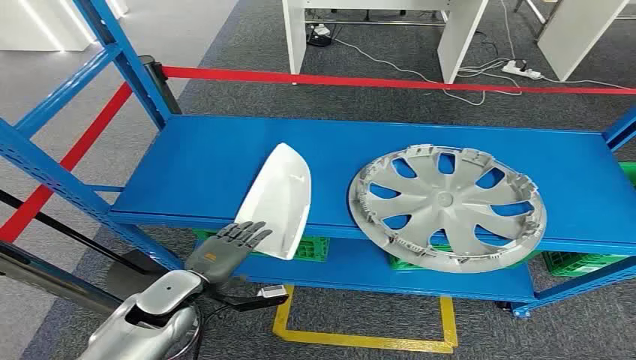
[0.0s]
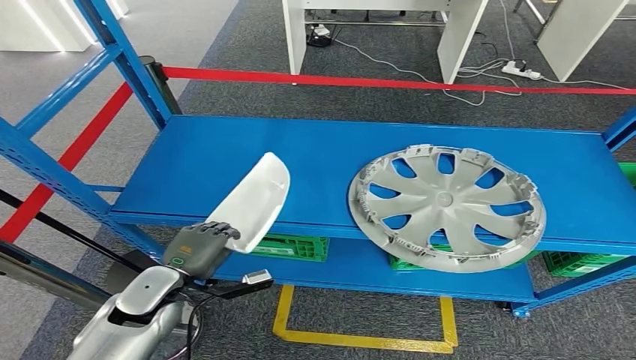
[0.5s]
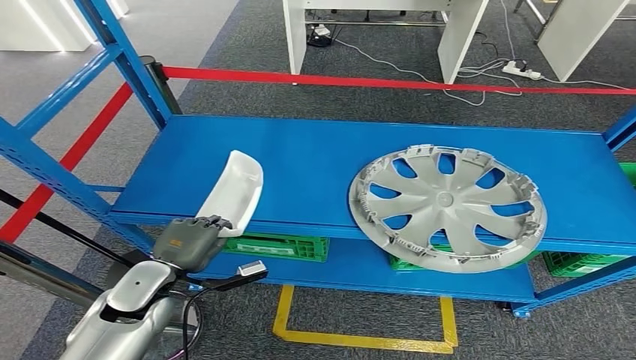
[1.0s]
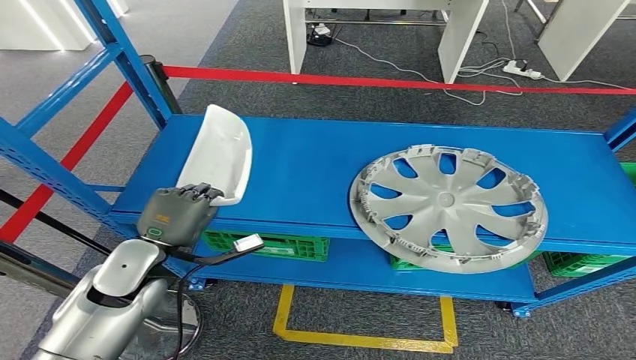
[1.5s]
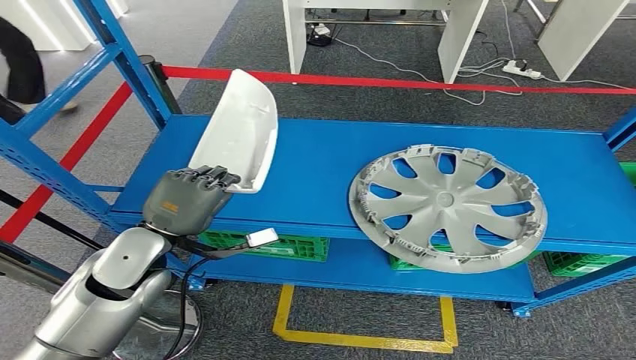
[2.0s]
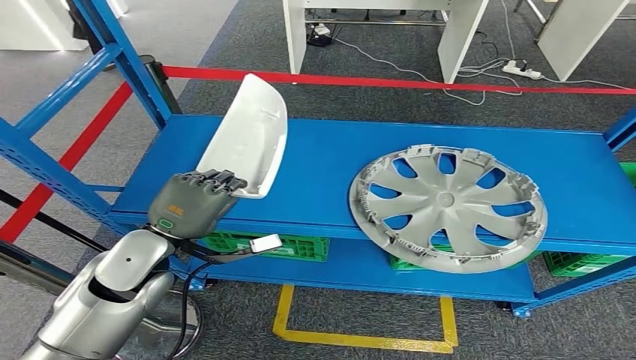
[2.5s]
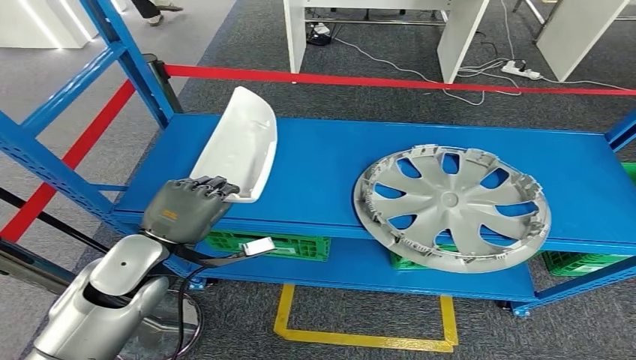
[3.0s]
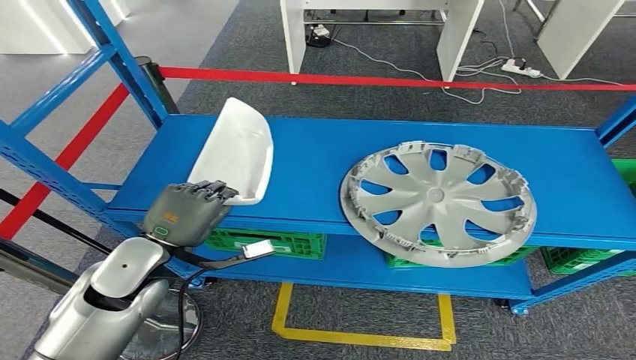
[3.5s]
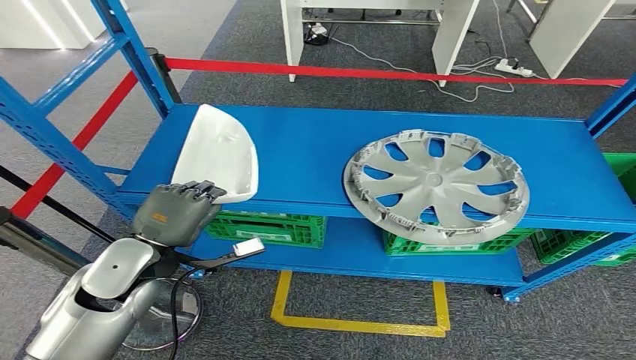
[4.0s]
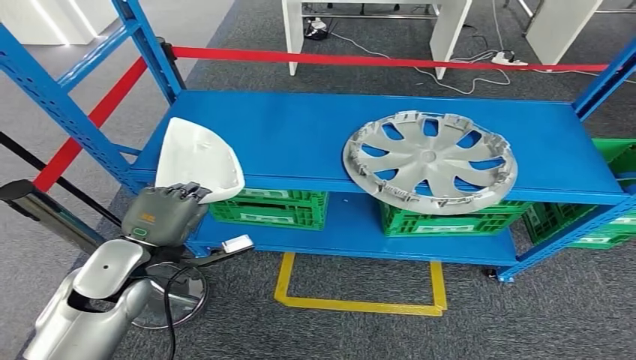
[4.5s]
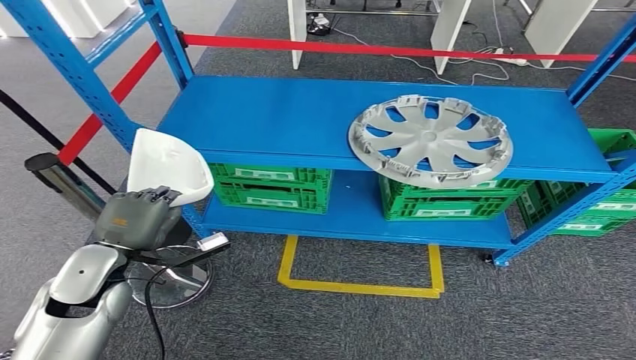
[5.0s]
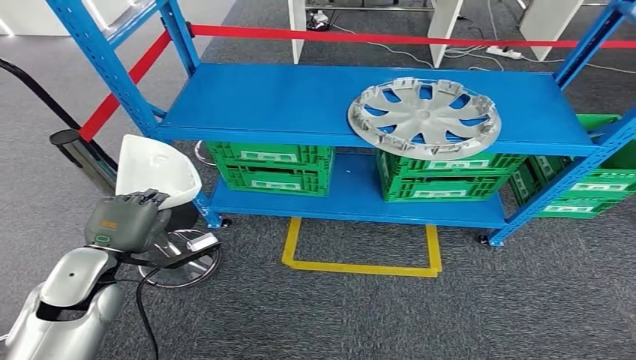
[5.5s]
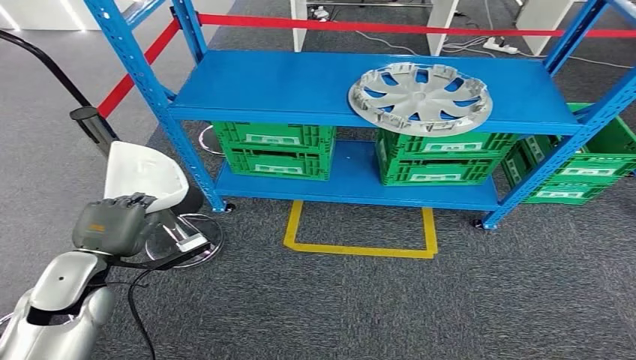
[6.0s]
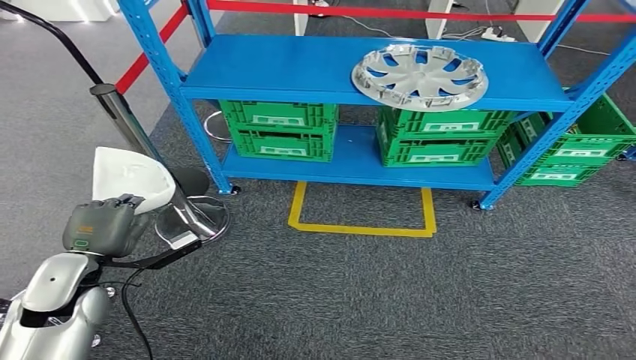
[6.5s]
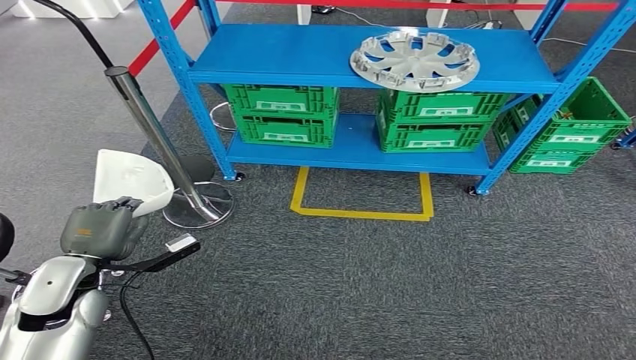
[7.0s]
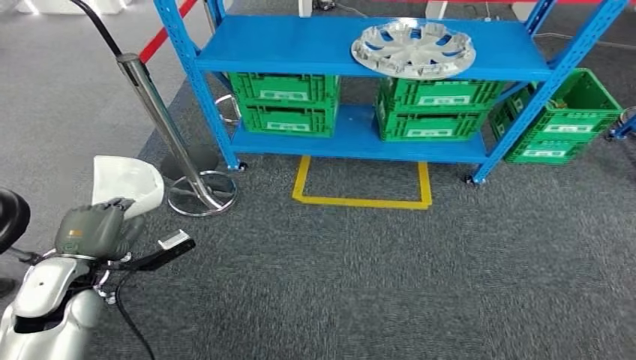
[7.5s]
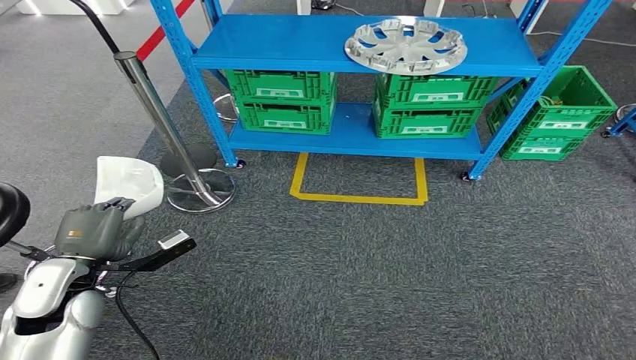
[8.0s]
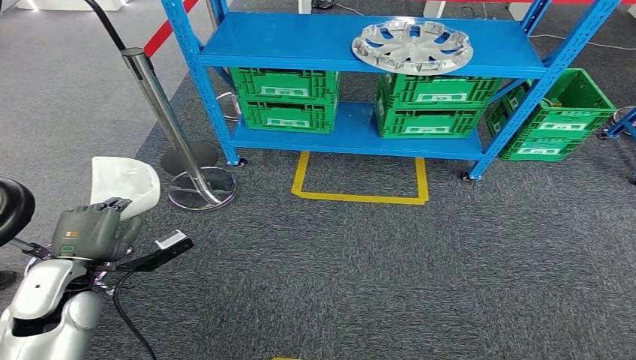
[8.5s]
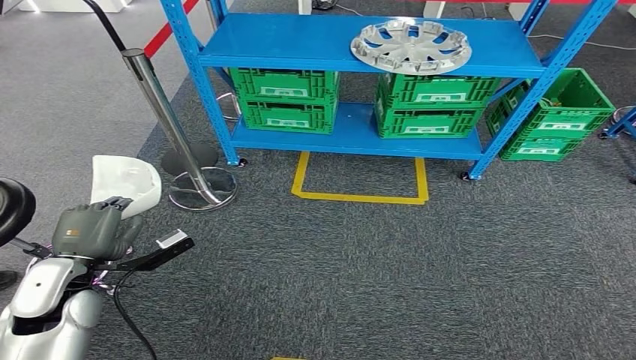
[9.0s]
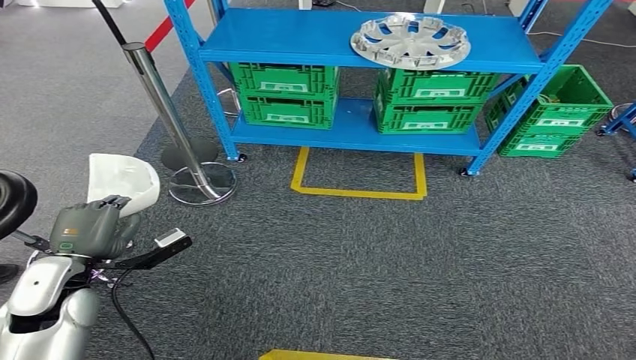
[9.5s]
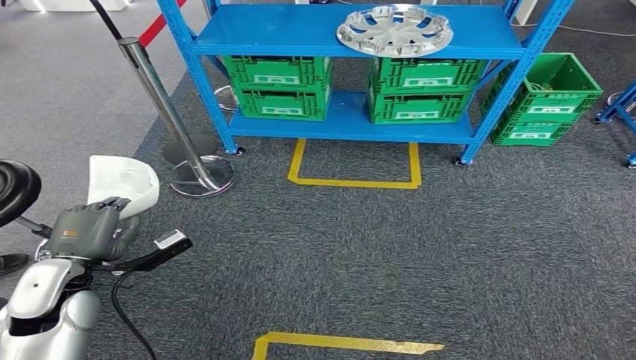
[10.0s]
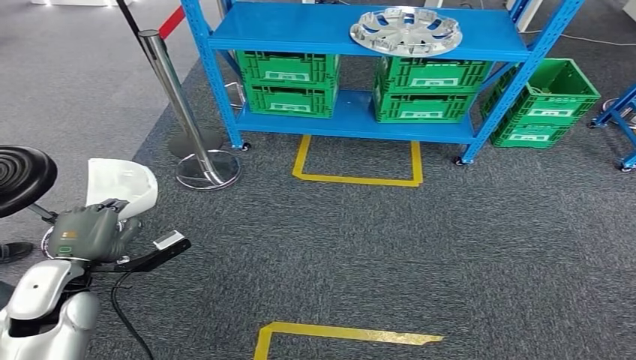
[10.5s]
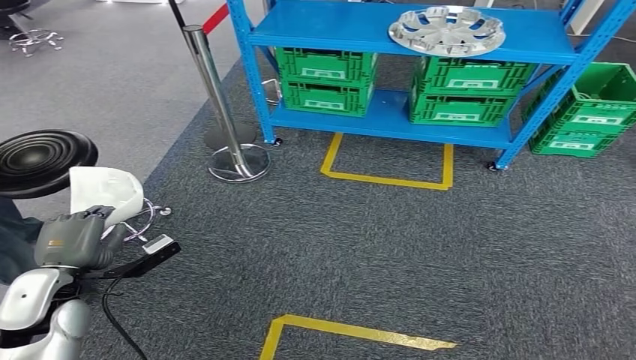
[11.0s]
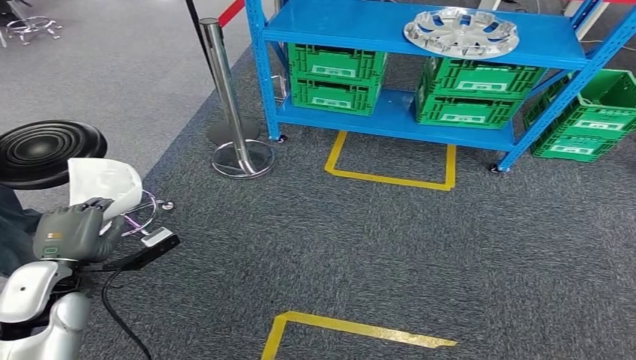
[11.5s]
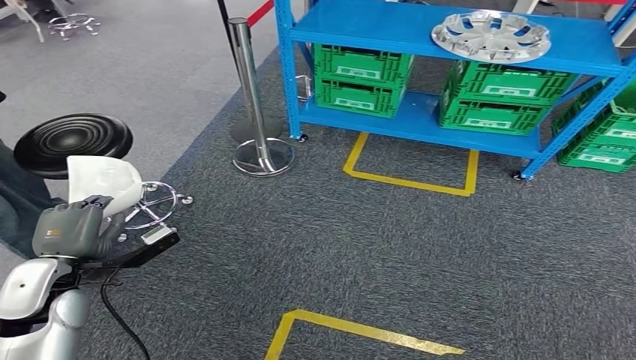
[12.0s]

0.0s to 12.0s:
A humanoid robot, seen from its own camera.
Step, 0.0s to 3.5s: Pick up the small component from the shelf.

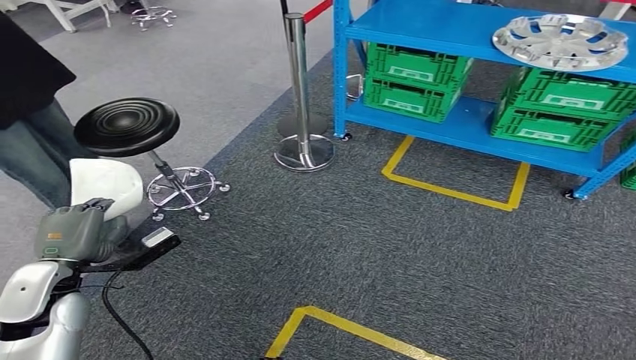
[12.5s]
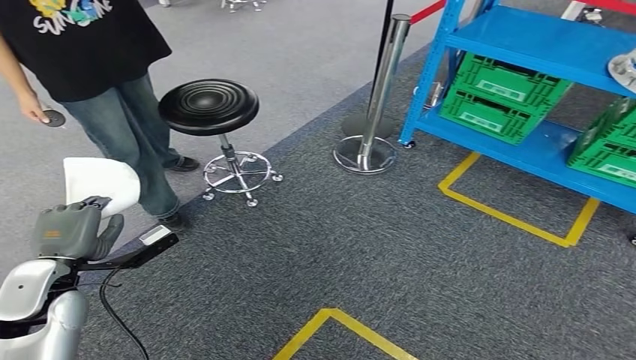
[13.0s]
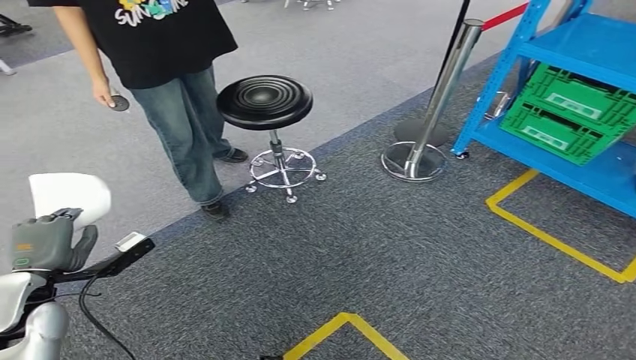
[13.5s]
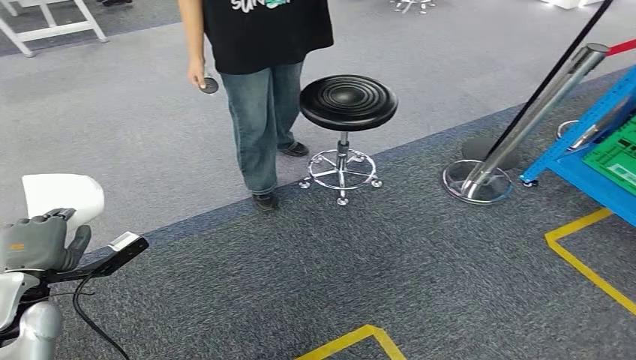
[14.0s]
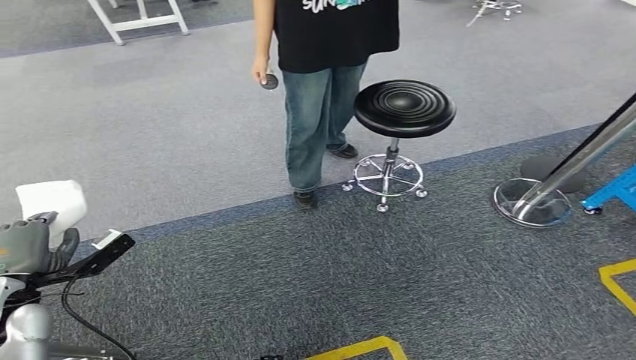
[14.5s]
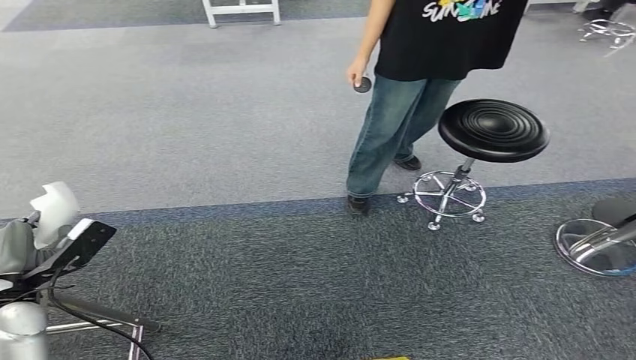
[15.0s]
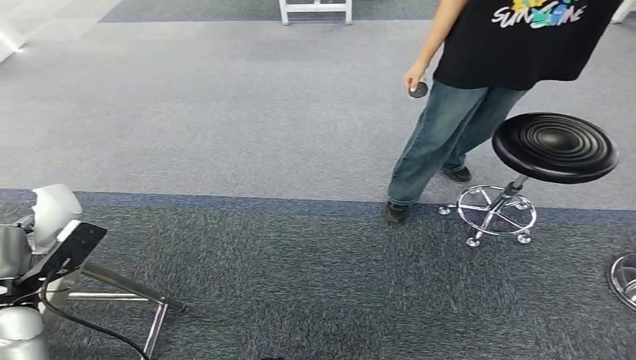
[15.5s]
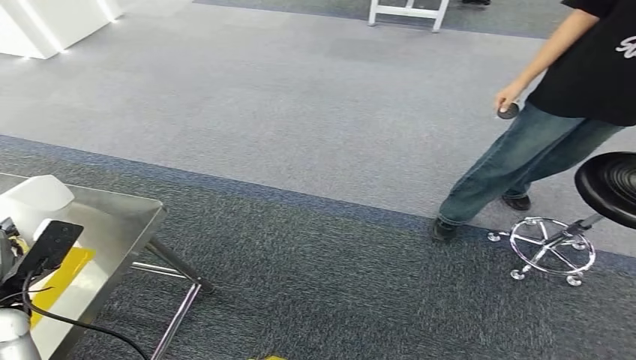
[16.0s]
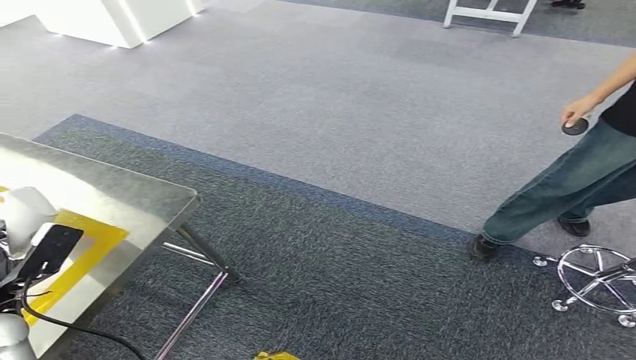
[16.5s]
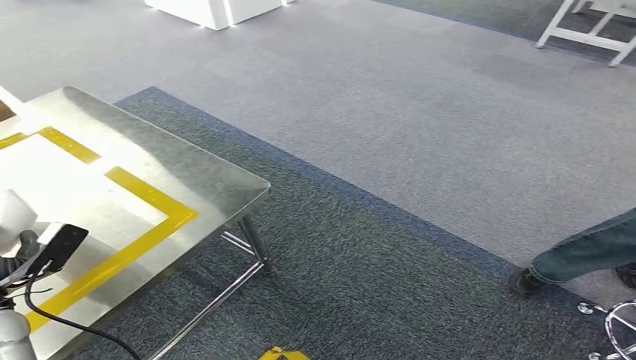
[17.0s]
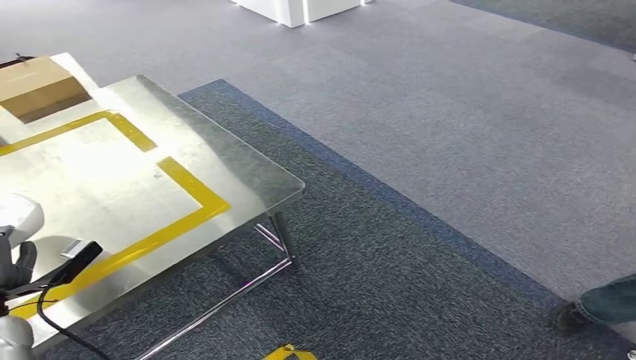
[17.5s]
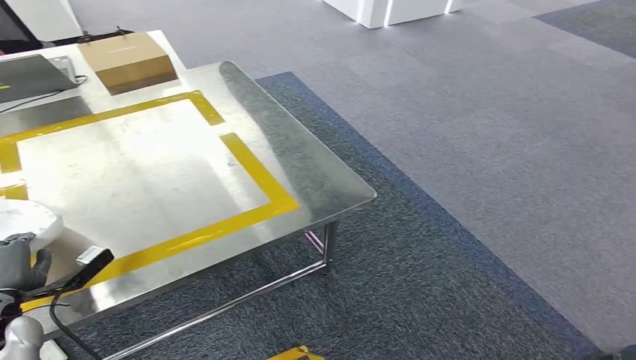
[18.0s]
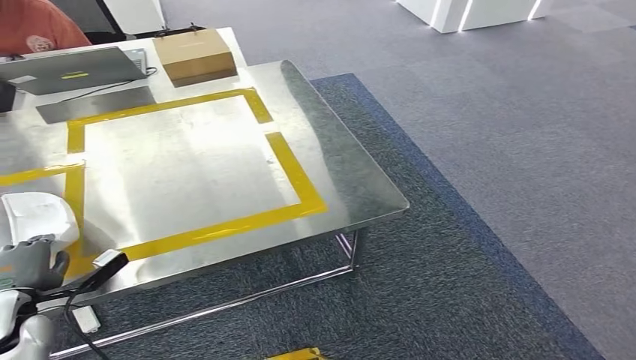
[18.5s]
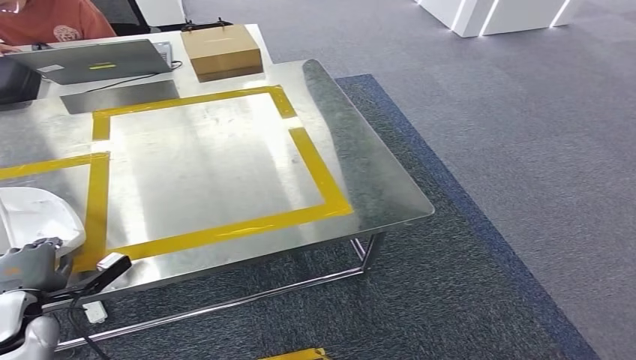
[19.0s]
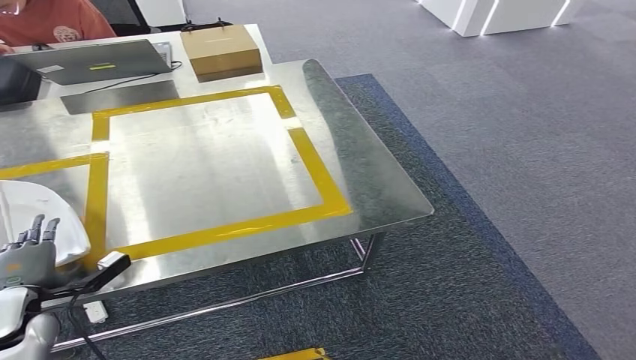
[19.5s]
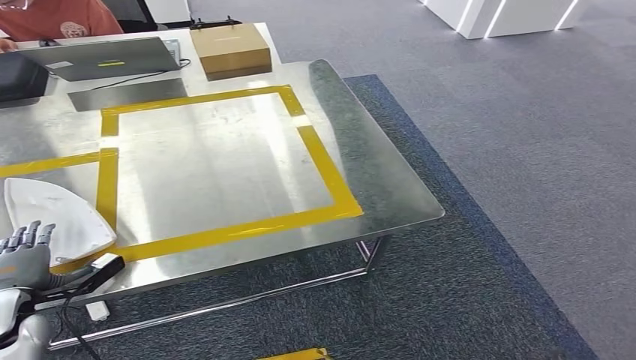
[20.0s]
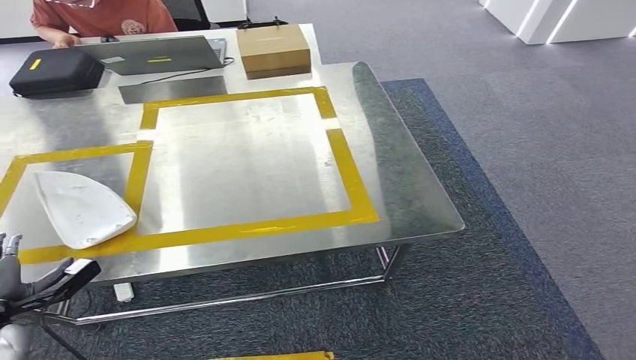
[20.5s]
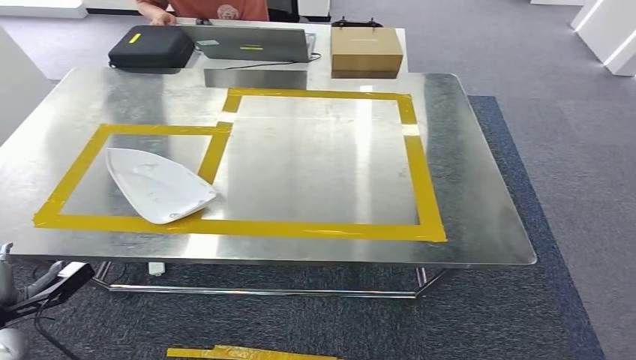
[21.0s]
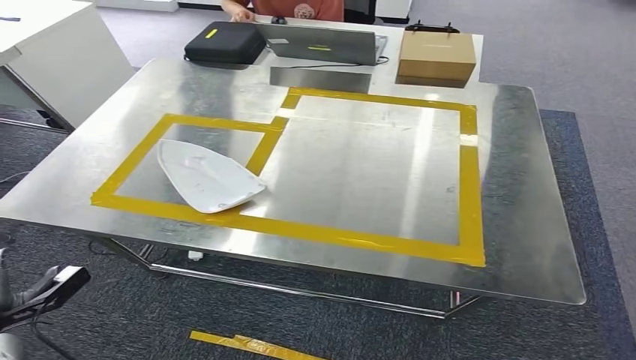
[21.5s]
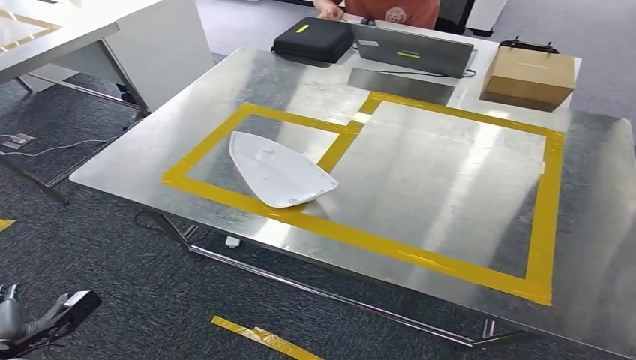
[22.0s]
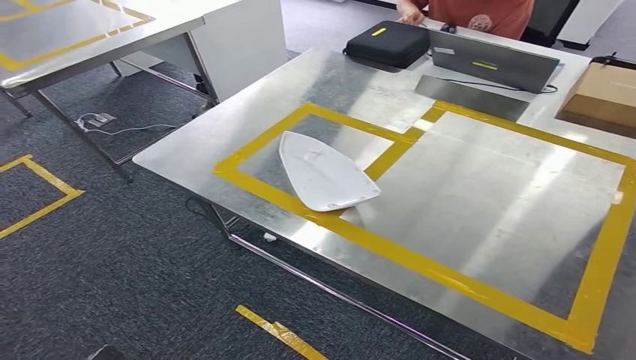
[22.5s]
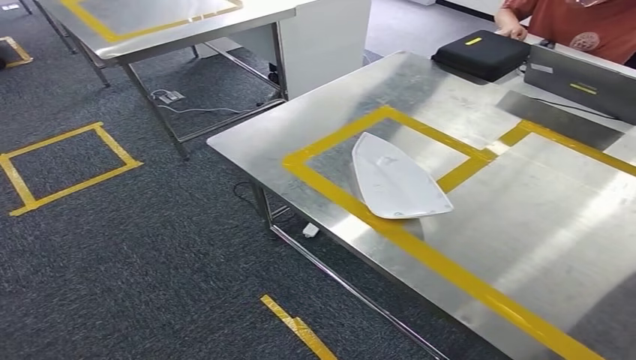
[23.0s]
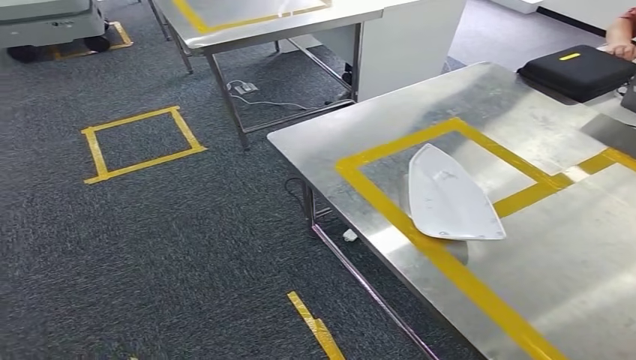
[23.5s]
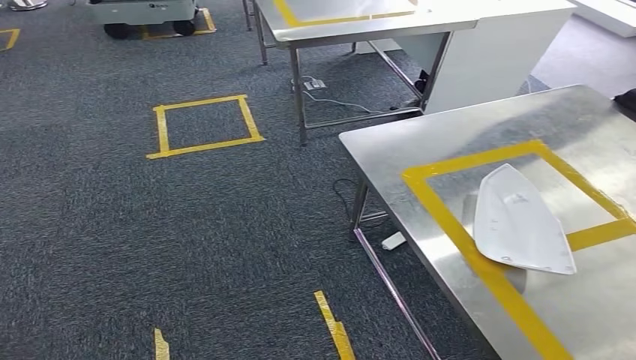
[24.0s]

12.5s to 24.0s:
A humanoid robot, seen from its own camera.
Step, 12.5s to 16.0s: Move the small component to the workbench.
Step, 16.5s to 21.0s: Insert the small component into the corresponding slot on the workbench.
